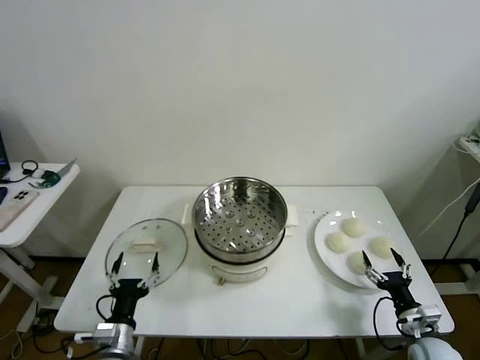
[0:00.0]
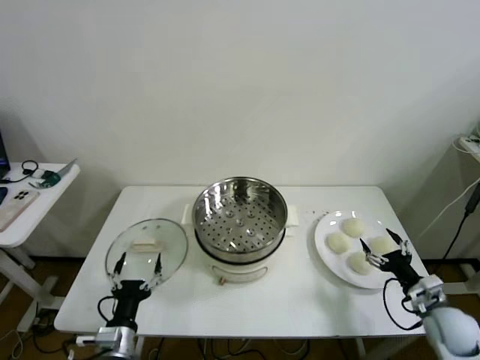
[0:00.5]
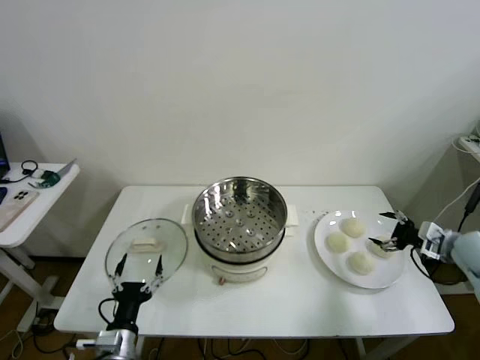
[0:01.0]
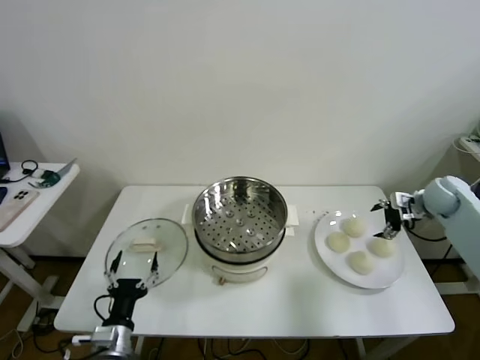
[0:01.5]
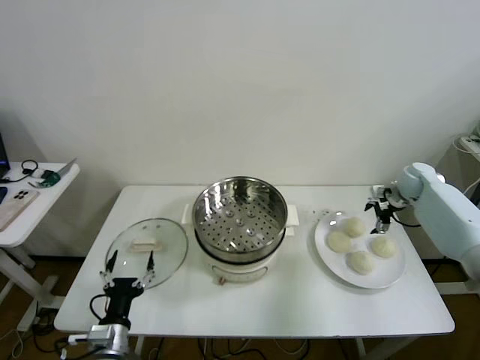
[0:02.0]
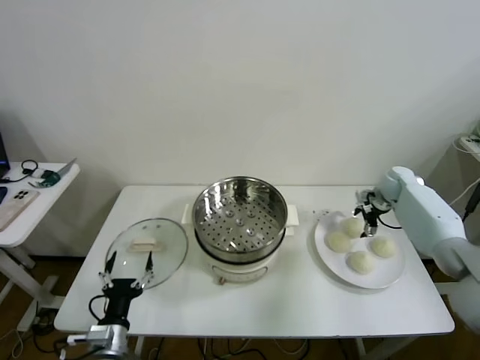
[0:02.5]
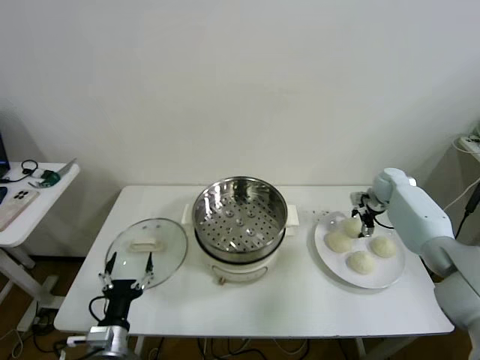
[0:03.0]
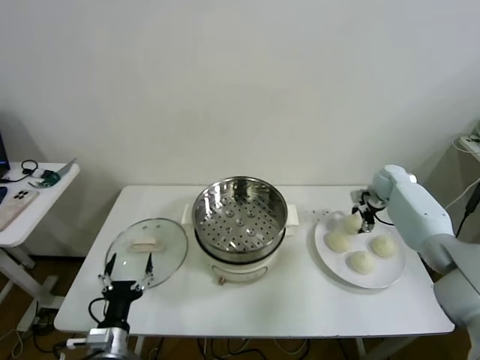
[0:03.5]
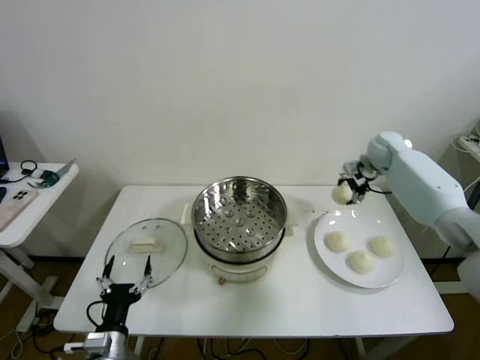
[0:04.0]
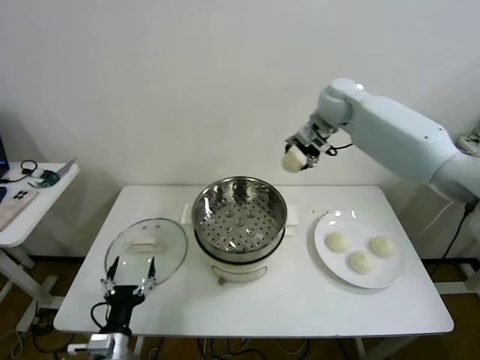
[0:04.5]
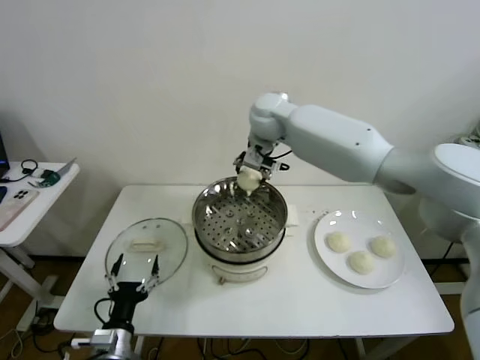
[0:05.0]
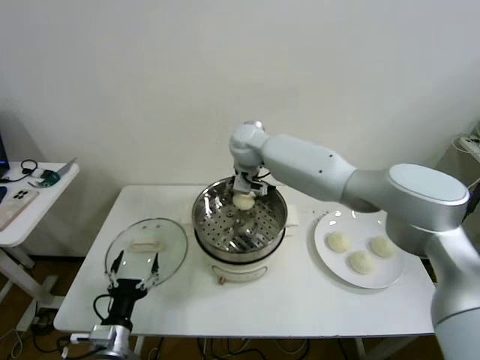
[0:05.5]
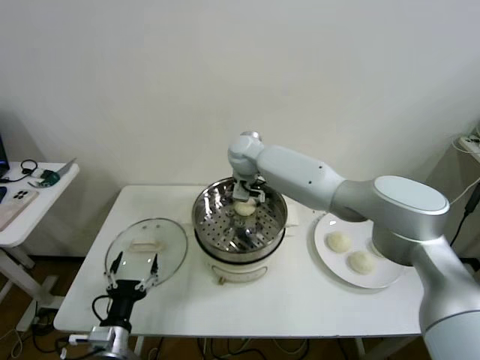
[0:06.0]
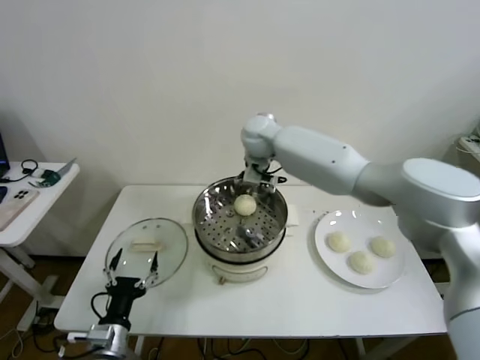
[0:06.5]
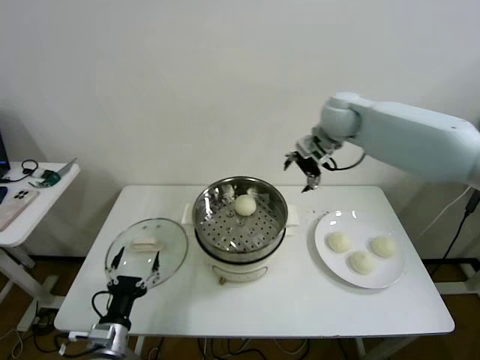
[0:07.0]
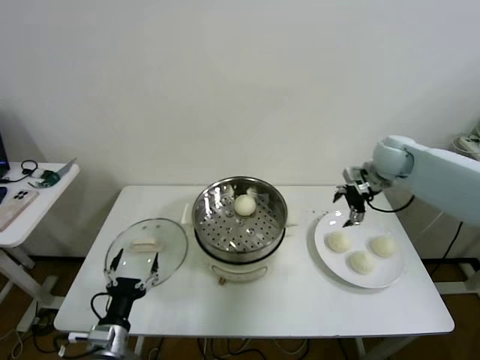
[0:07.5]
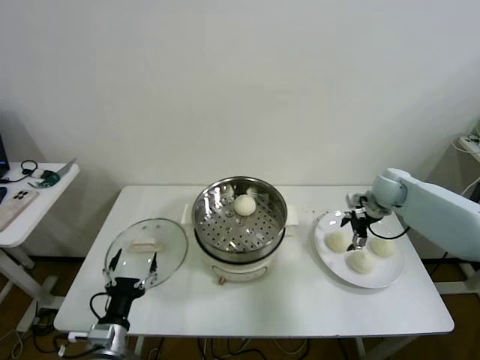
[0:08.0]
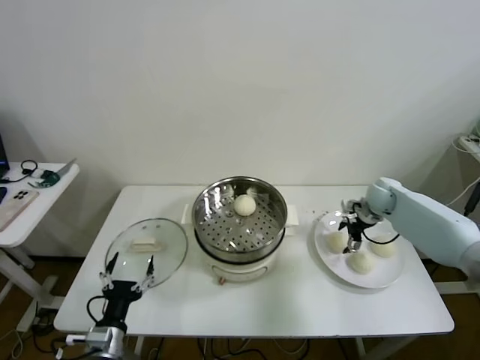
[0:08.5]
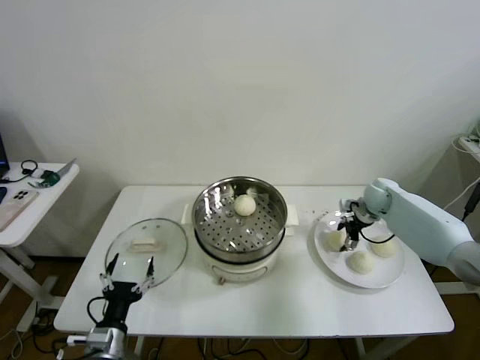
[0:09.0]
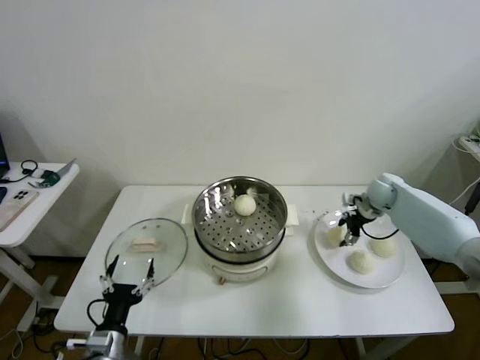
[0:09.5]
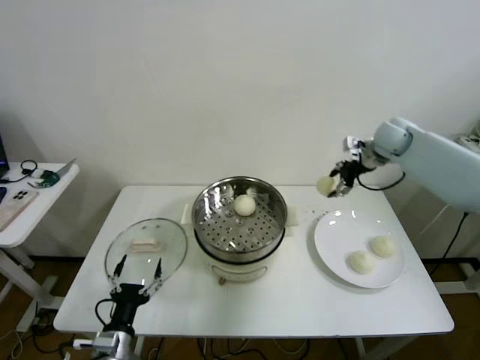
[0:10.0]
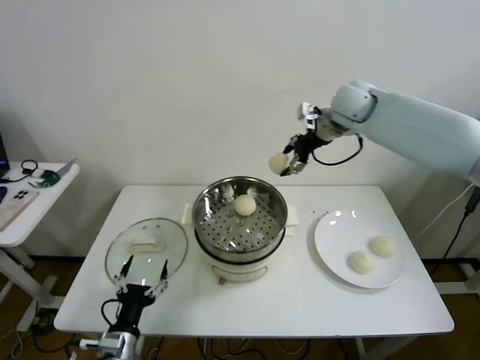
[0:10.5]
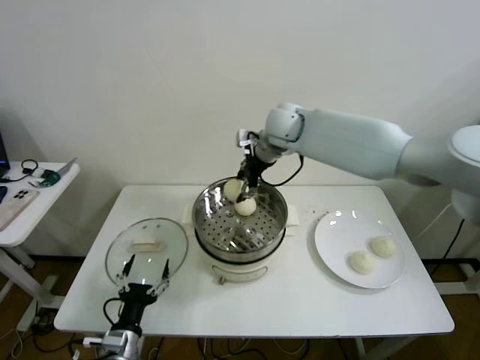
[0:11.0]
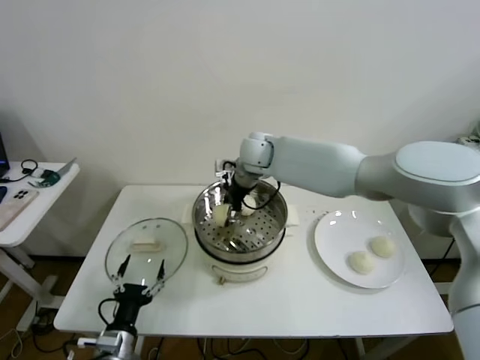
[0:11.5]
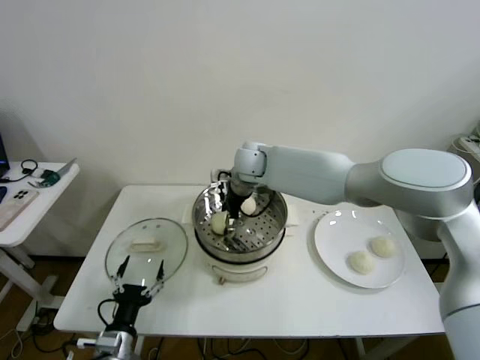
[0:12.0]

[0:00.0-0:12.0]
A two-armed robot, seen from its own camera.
Task of the whole recording: take steamed baozi put them in steamer then cover it.
Step, 0.0 to 3.0 s: Grasp the baozi in the plate with right gripper.
Step, 3.5 to 6.0 s: Place the baozi on the steamer with right gripper.
Step, 6.5 to 9.0 s: Grasp the baozi in the plate with right gripper.
2.0 to 4.0 s: The right gripper moves upward, to the left and forward, some 15 cm.
4.0 to 6.0 s: The right gripper travels to the left by approximately 35 cm.
6.0 to 8.0 s: The right gripper travels to the right by about 40 cm.
8.0 to 10.0 s: The right gripper moves upward, about 15 cm.
10.0 to 12.0 s: The right gripper shifts some 35 cm to the left.

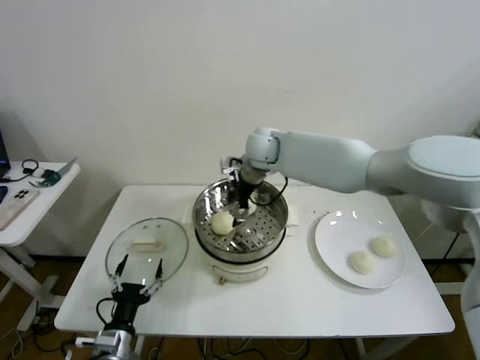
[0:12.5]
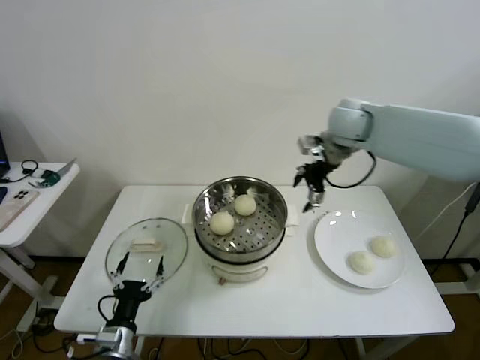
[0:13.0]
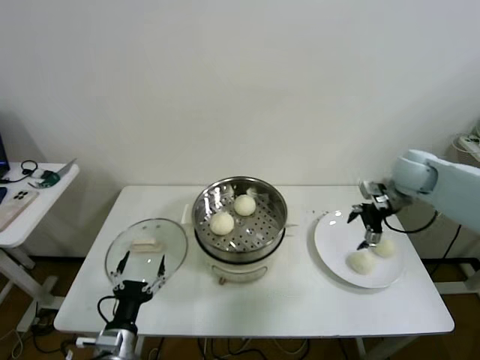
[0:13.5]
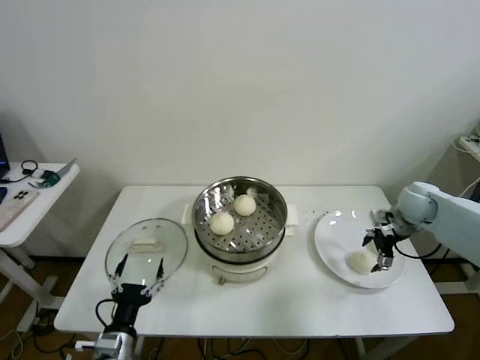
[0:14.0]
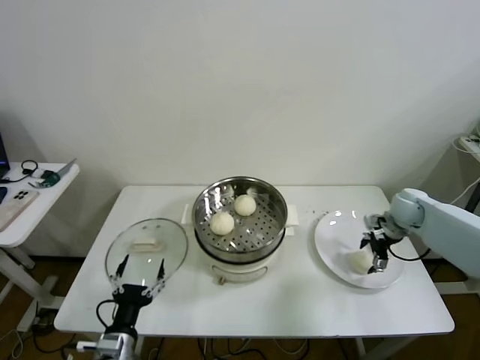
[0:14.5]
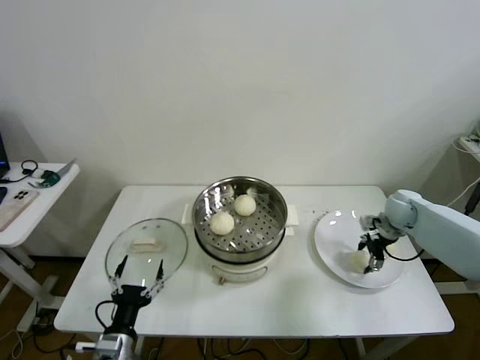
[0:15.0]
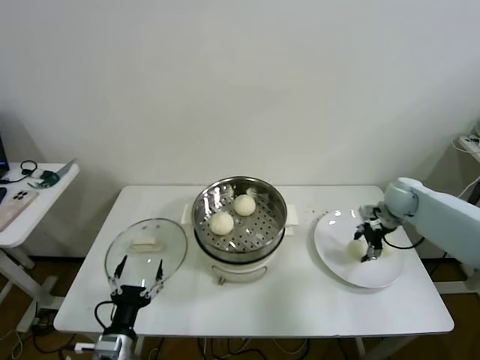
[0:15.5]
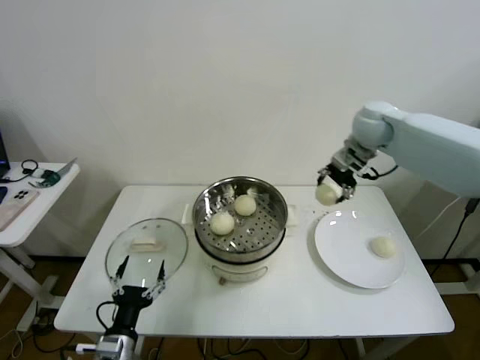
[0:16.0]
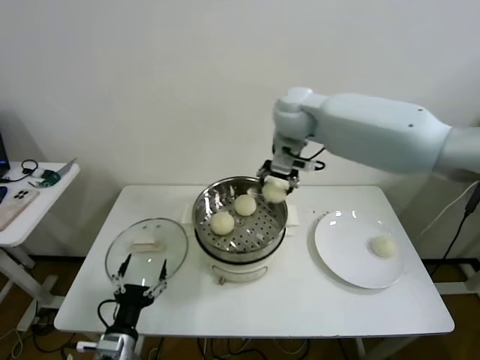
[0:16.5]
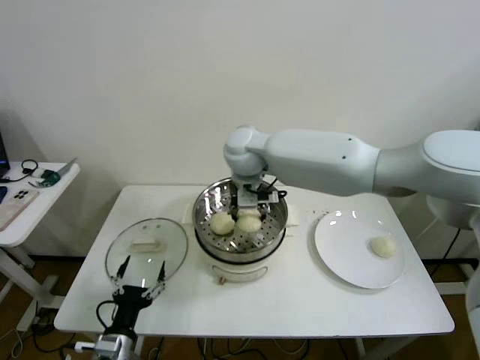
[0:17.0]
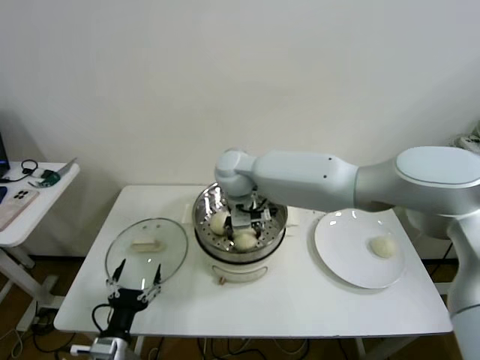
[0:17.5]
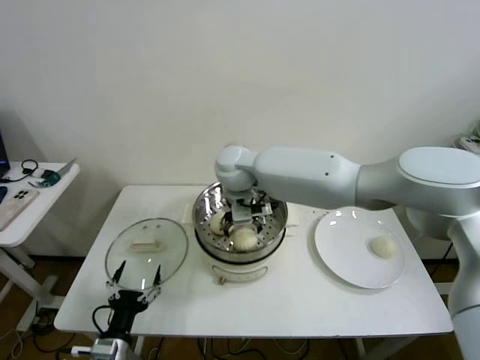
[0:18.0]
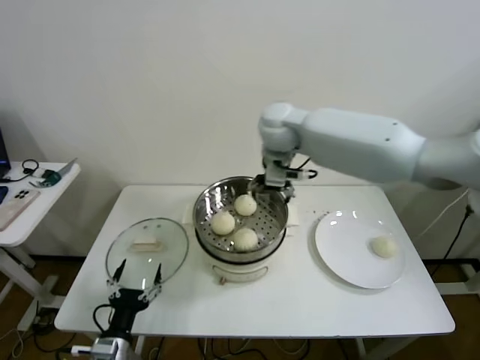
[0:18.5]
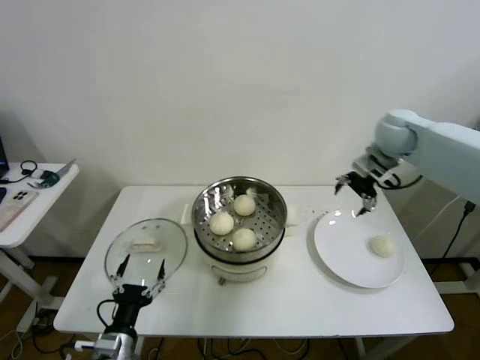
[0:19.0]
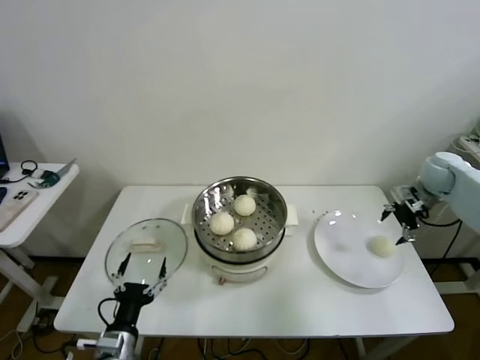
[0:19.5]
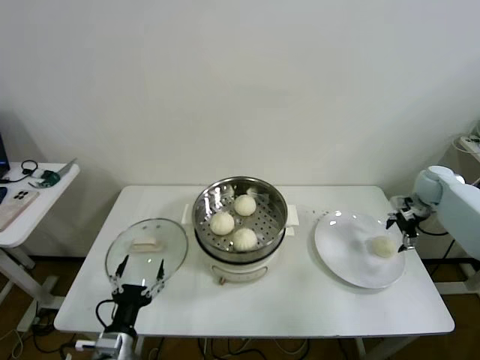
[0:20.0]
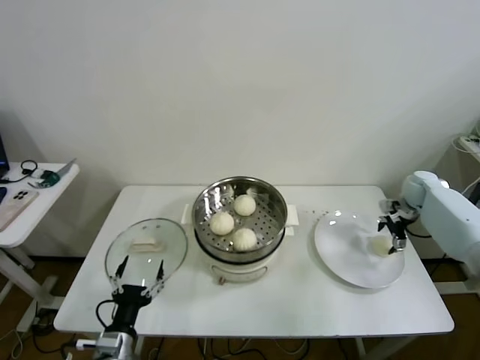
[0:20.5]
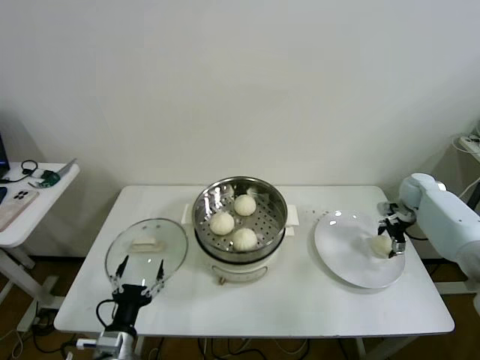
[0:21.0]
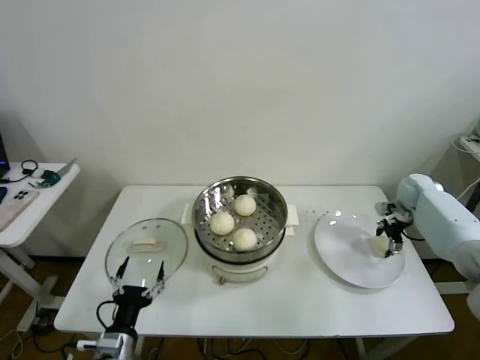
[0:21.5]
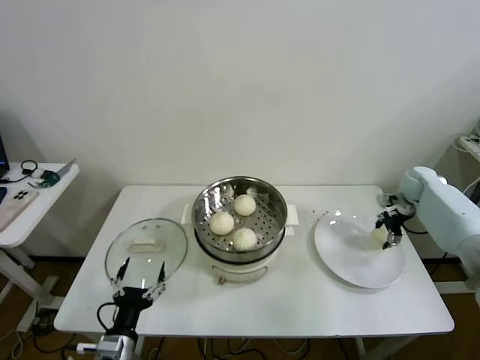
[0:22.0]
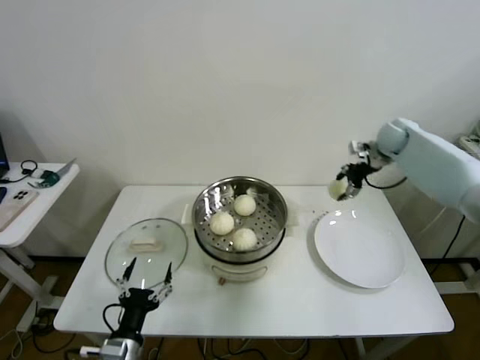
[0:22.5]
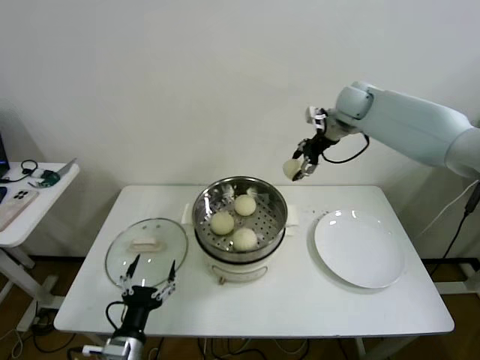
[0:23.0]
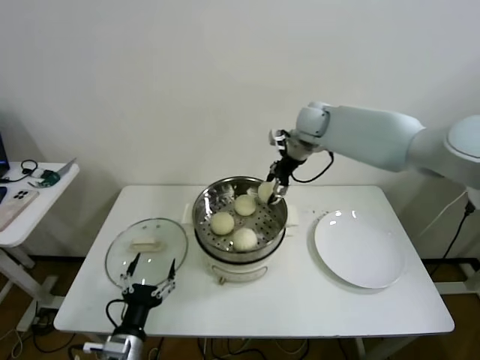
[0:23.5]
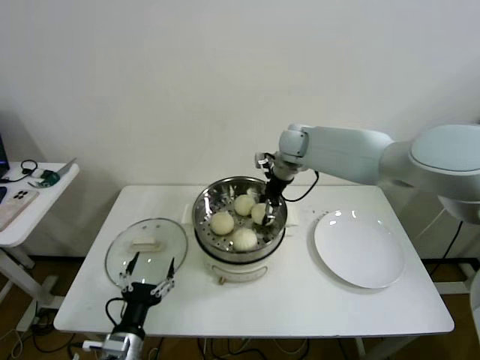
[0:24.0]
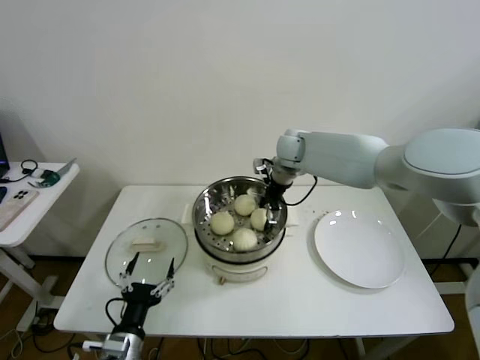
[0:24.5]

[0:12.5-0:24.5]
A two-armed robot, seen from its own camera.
Task of the whole recording: take steamed baozi put them in steamer then cover it.
Step, 12.5 to 15.0 s: Grasp the baozi in the plate with right gripper.
Step, 15.5 to 17.5 s: Place the baozi on the steamer with right gripper.
Step, 18.0 to 21.5 s: Grasp the baozi in the plate with right gripper.
12.5 to 14.5 s: The right gripper moves to the right and downward, approximately 40 cm.
14.5 to 16.5 s: The right gripper moves to the left and upward, some 40 cm.
16.5 to 18.5 s: The right gripper goes downward and returns, some 10 cm each way.
18.5 to 20.5 s: The right gripper heads to the right and downward, covering some 50 cm.
20.5 to 22.5 s: The right gripper heads upward, to the left and forward, covering some 20 cm.
22.5 to 24.5 s: The right gripper heads to the left, covering approximately 25 cm.

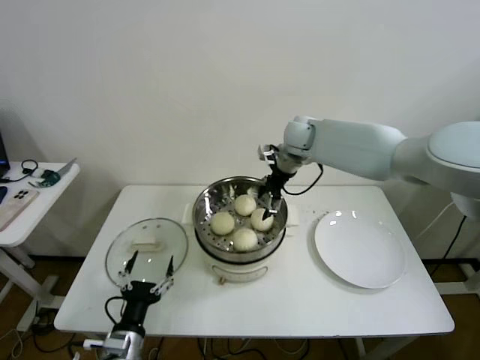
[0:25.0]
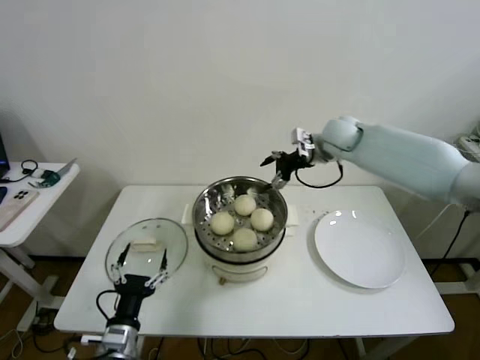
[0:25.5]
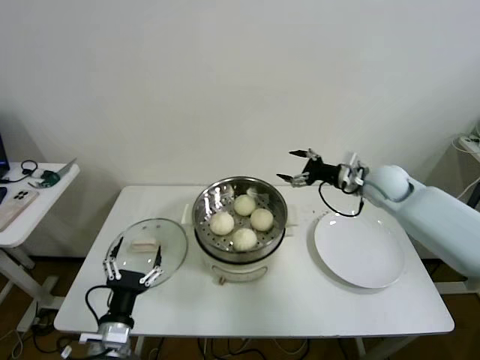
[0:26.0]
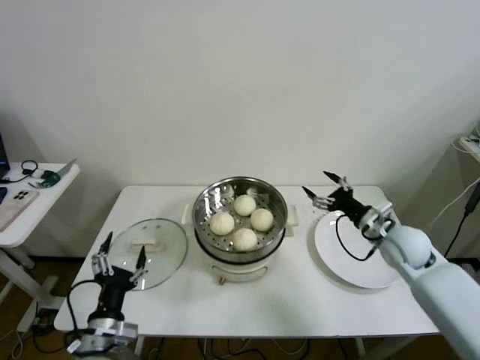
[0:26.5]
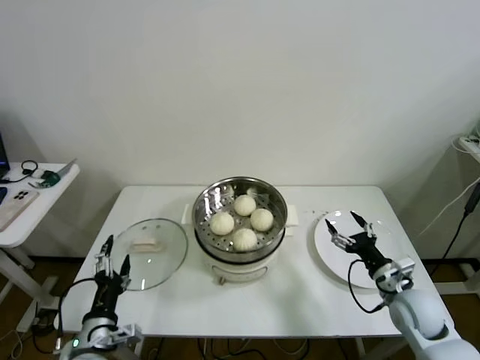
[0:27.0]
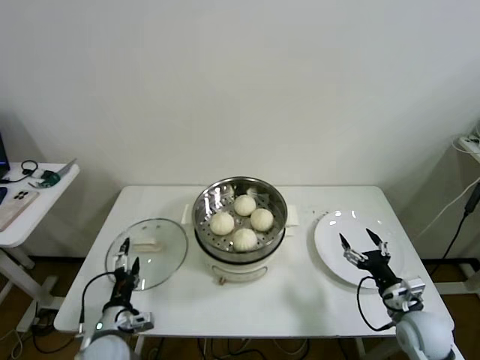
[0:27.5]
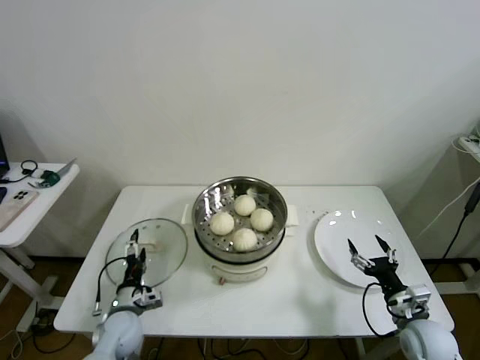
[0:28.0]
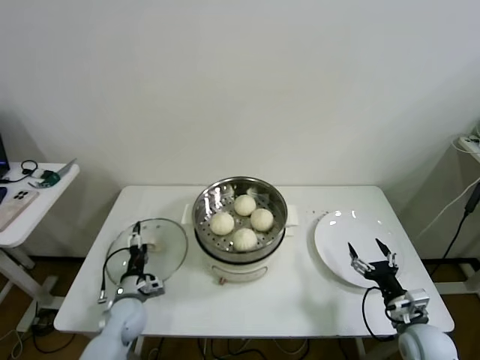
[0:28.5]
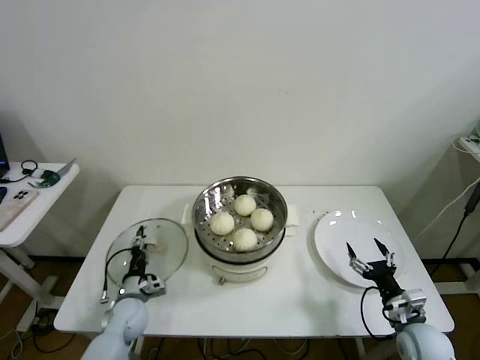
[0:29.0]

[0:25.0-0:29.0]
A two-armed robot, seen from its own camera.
Task of the whole recording: take steamed baozi put them in steamer then cover it.
25.0 to 27.0 s: The right gripper travels backward, downward and to the right by roughly 50 cm, while the left gripper changes place by some 5 cm.
27.0 to 29.0 s: The right gripper is displaced backward and downward by roughly 10 cm. The left gripper is displaced forward and downward by about 20 cm, and closes up.
